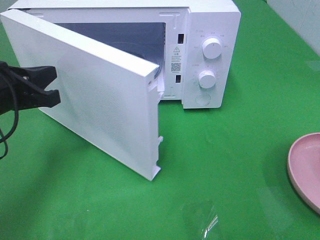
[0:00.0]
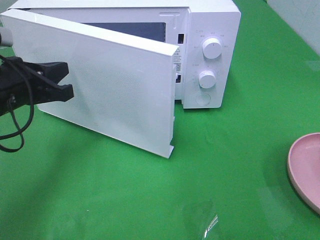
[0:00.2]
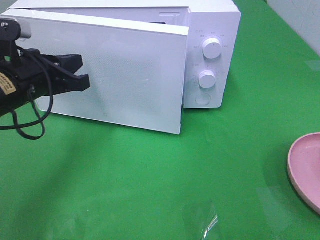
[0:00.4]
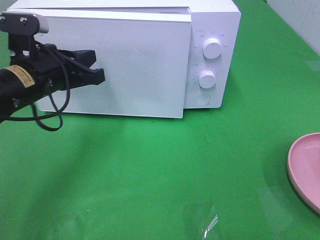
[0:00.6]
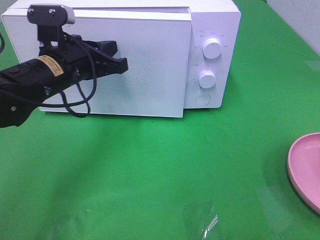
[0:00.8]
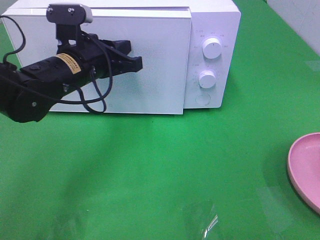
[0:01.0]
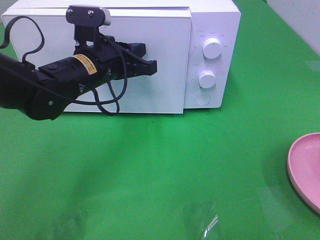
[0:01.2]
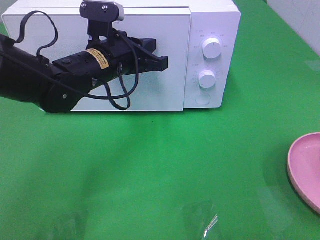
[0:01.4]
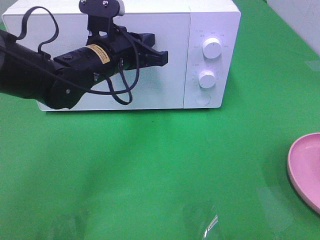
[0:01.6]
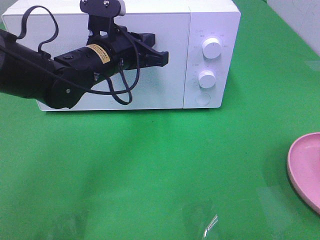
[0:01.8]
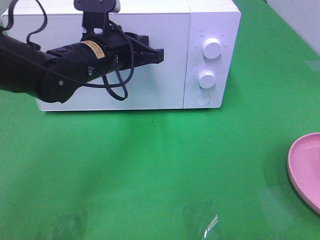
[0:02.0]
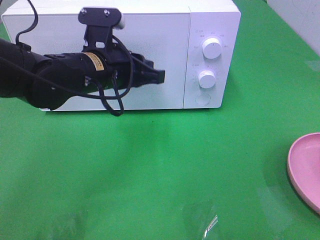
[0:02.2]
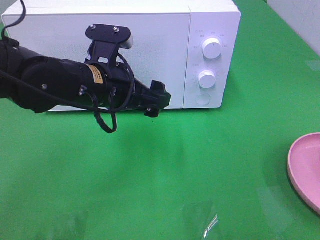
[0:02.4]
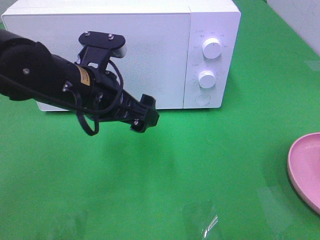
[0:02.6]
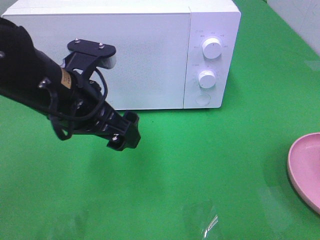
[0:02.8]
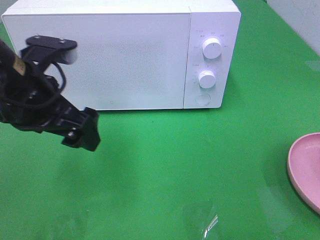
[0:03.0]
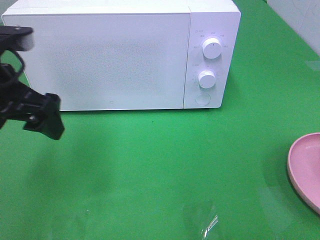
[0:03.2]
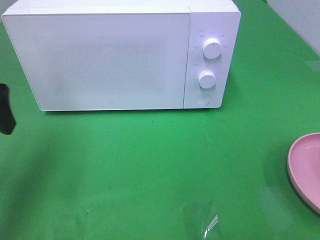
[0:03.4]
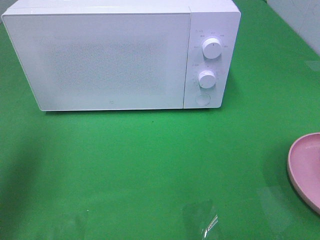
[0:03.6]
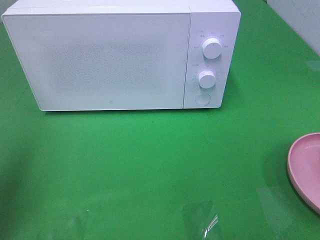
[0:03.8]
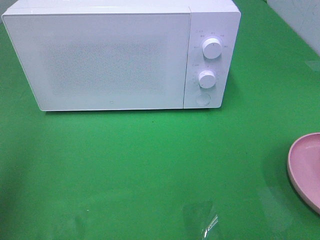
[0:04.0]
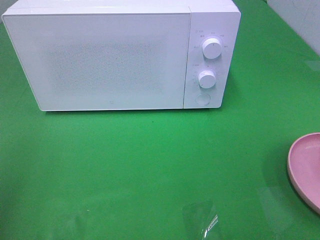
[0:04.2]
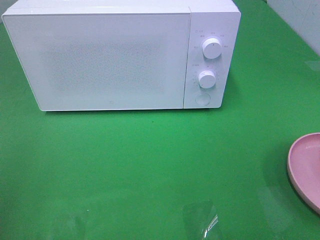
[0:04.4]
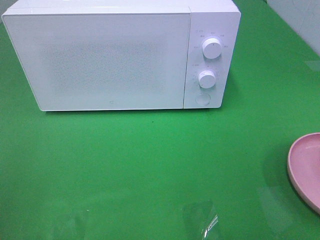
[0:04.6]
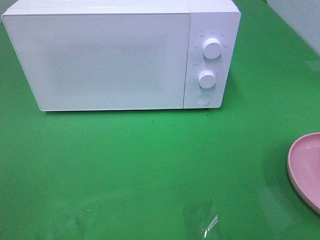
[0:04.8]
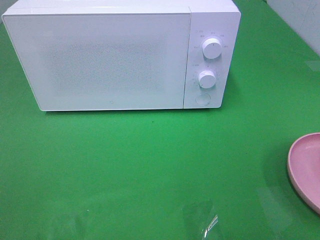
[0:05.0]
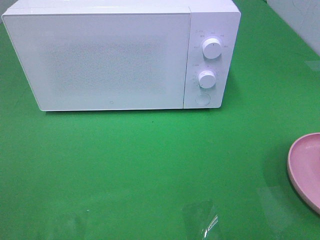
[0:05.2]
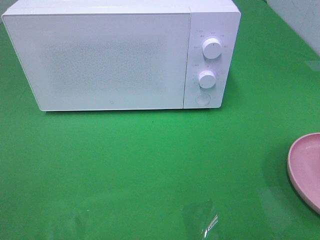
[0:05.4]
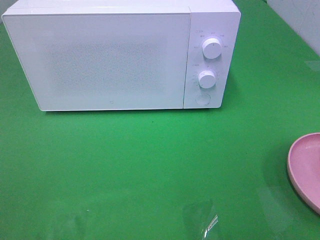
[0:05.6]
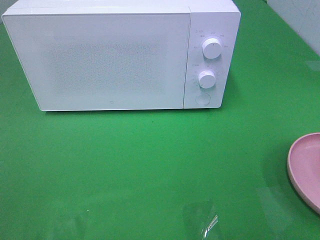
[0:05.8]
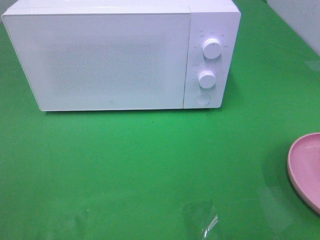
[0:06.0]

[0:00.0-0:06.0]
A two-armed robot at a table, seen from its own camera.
Task of the whole recording: Heat the burger.
Step, 0:00.0 to 0:02.2: Left hand: close the microwave door.
0:00.0 to 0:01.6: The left gripper moves to the right and forward, about 20 cm.
0:01.6 to 0:03.0: The left gripper heads backward and to the left, covering roughly 15 cm, and opens.
0:03.0 to 0:04.4: The left gripper shifts roughly 25 cm backward and to the left.

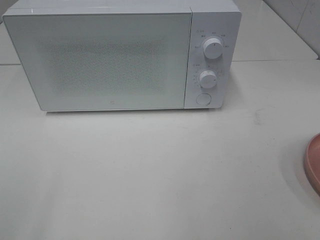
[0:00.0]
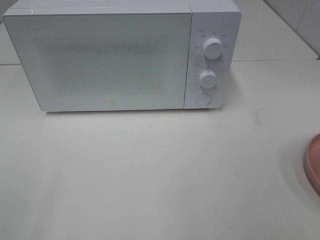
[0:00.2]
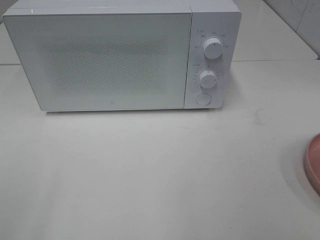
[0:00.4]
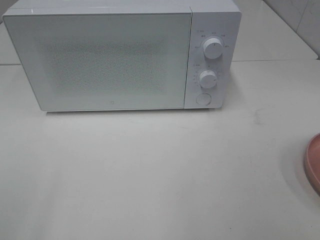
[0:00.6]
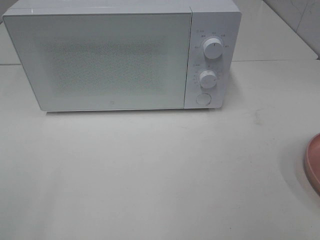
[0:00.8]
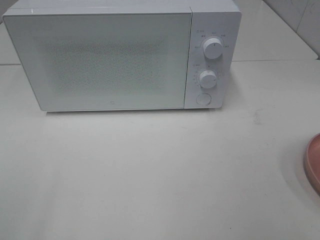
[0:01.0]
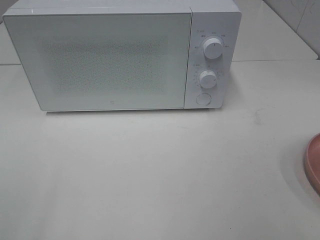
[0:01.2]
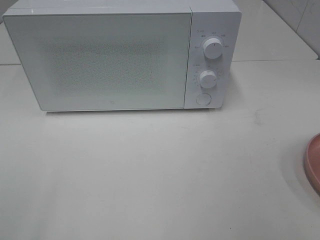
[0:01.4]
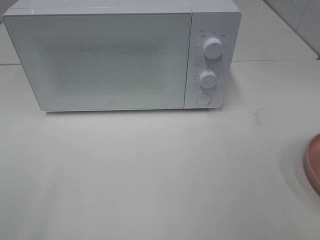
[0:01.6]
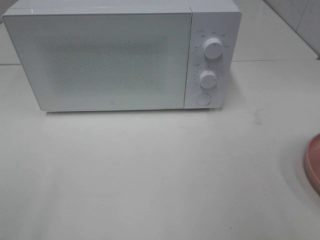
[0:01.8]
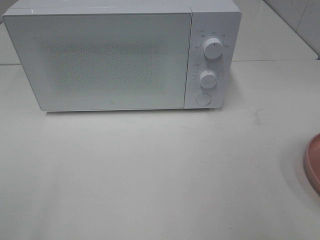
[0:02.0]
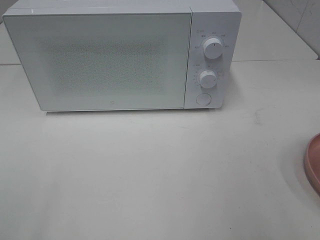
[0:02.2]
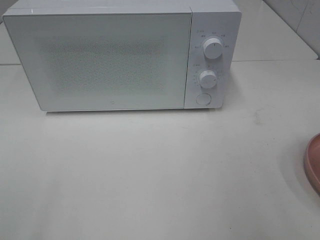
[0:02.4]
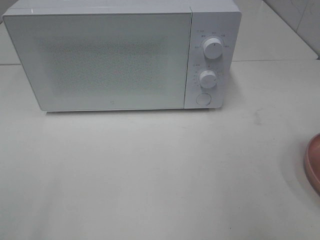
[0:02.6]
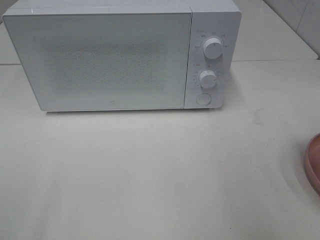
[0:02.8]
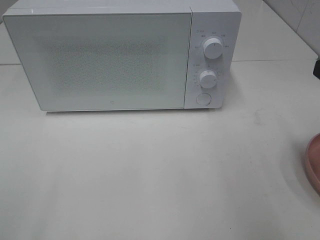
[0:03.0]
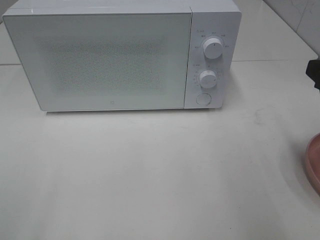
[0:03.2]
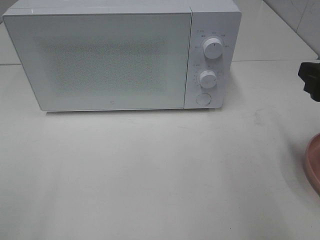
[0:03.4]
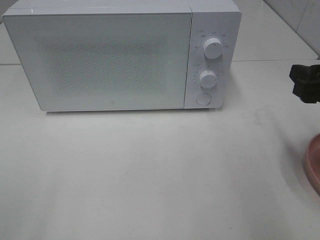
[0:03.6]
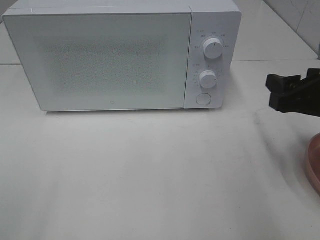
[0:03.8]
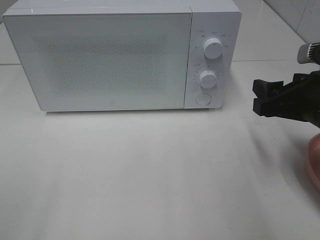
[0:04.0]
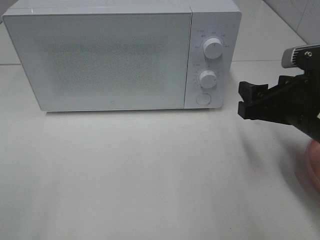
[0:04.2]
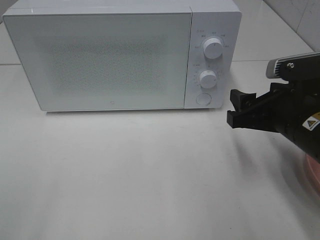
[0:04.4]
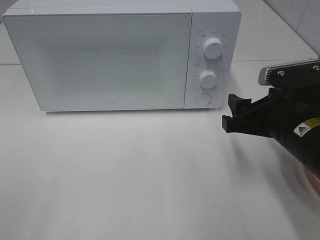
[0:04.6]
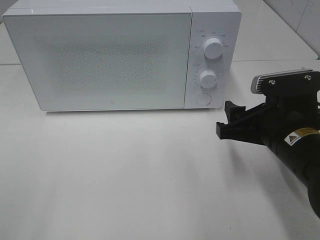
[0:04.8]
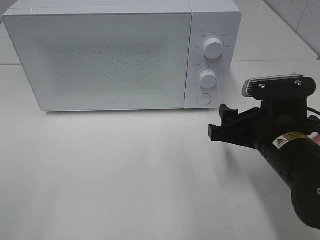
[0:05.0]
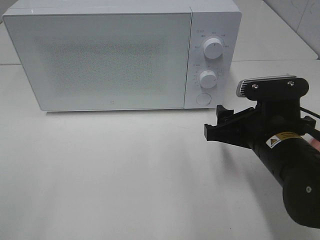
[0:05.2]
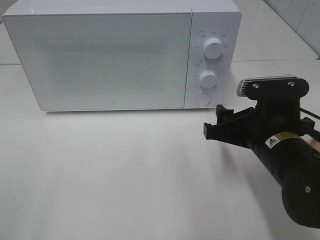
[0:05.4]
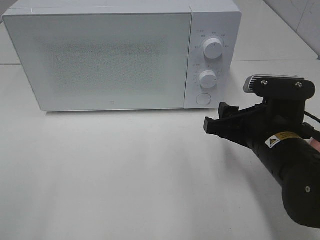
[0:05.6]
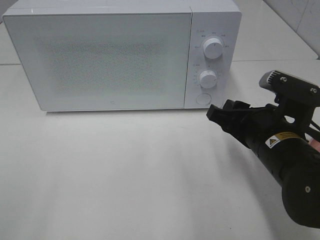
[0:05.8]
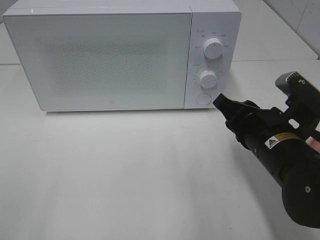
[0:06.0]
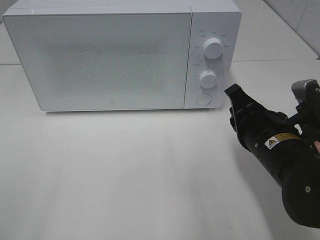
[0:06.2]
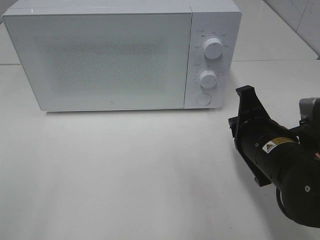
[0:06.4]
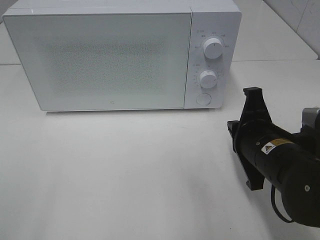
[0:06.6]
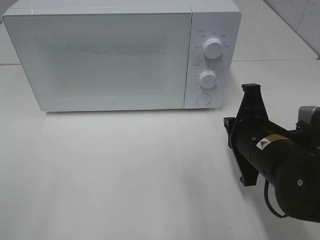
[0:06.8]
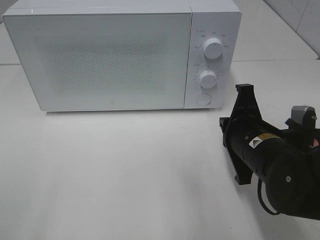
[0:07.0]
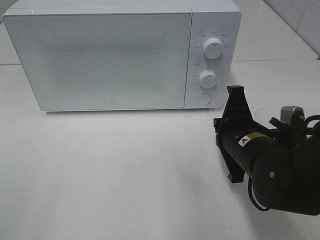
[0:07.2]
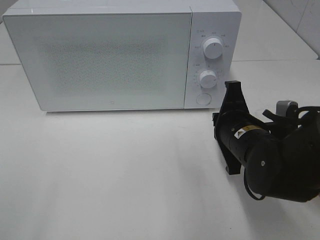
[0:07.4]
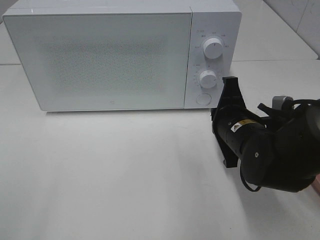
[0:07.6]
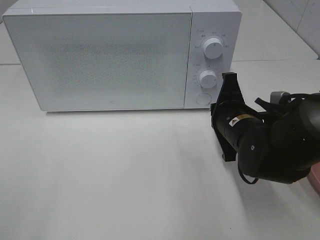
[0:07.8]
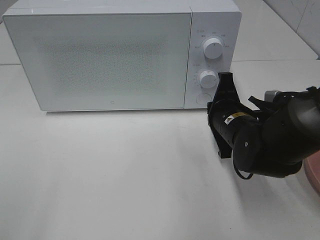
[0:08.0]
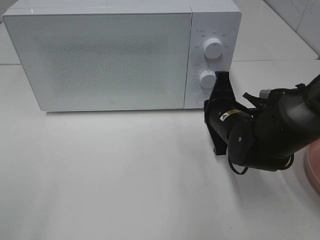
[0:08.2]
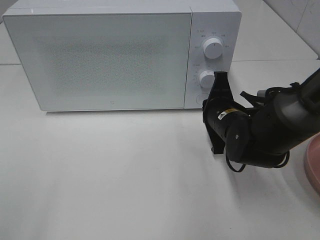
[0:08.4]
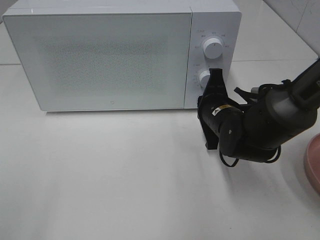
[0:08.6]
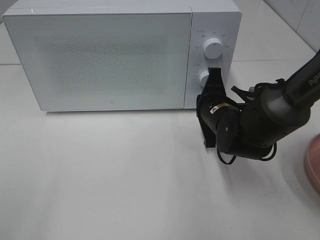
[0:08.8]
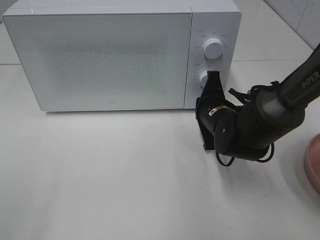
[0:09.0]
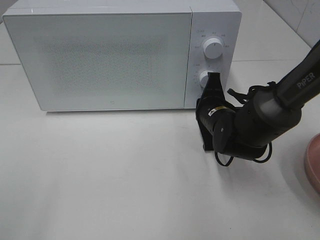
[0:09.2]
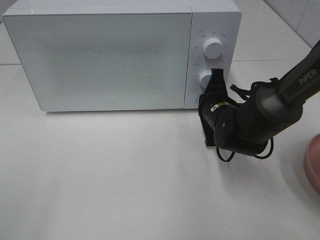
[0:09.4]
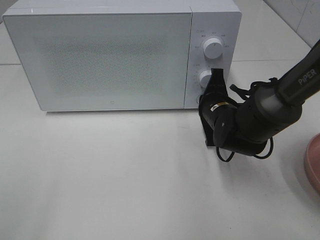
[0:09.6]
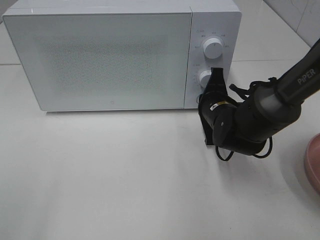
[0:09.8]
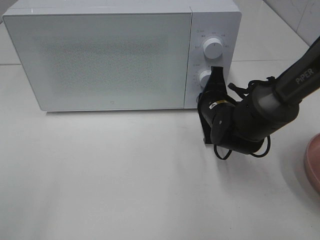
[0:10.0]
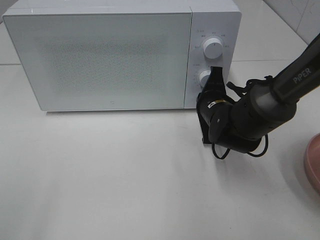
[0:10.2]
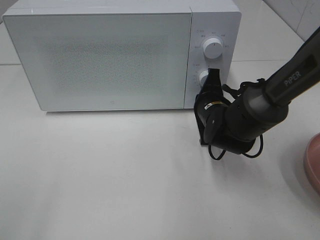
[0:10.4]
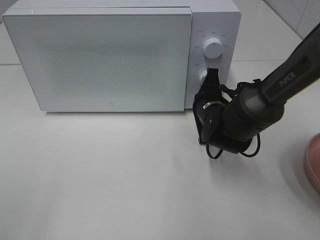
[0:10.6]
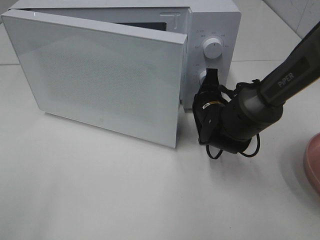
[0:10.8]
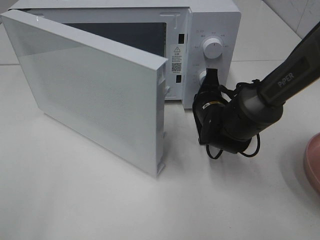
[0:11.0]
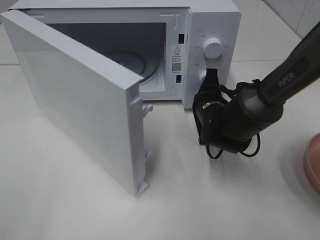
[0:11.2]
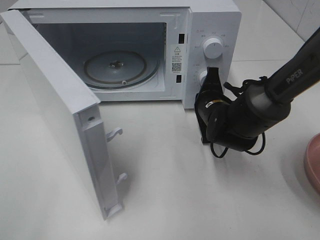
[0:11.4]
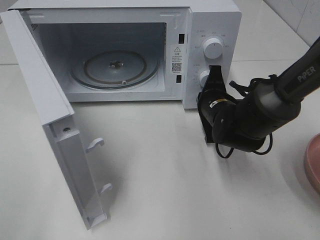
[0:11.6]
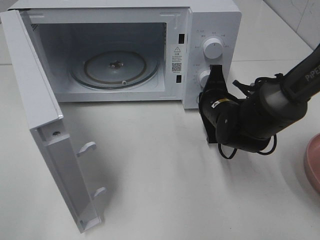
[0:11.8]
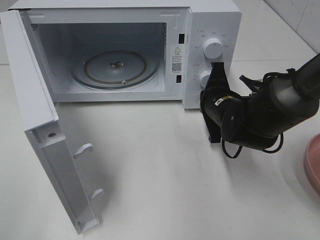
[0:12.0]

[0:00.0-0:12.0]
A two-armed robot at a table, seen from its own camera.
Task of the whole recording: Heat the burger.
Step, 0:00.0 to 0:11.8: Right hand: press the switch.
0:03.0 to 0:04.4: The right gripper goes approximately 10 cm downward and to the left.
0:04.4 to 0:06.0: The right gripper closes its fingers.
0:06.0 to 0:07.6: The right gripper is displaced forward by approximately 5 cm, and closes its fingers.
0:07.6 to 0:09.0: The right gripper is displaced forward by approximately 5 cm.
0:09.0 to 0:10.4: The grippers make only small movements.

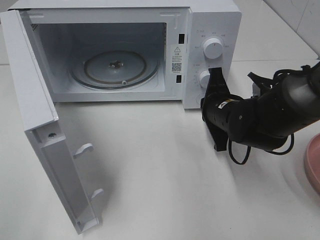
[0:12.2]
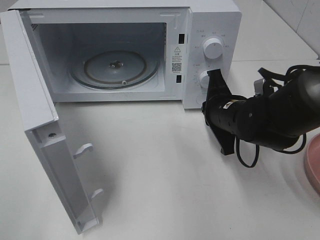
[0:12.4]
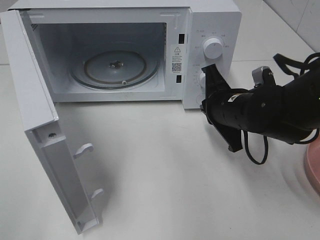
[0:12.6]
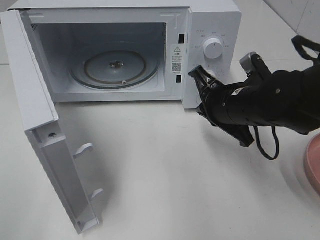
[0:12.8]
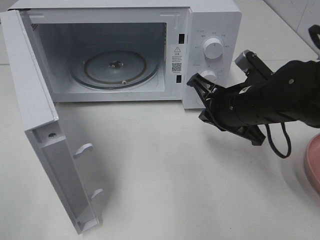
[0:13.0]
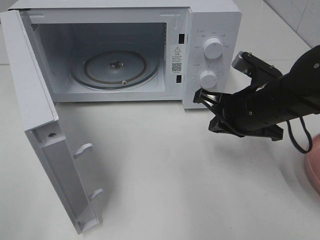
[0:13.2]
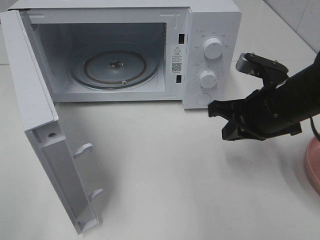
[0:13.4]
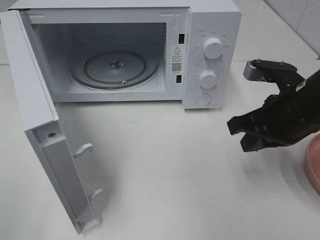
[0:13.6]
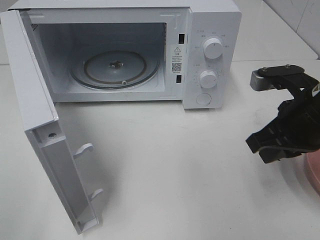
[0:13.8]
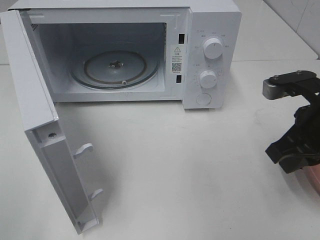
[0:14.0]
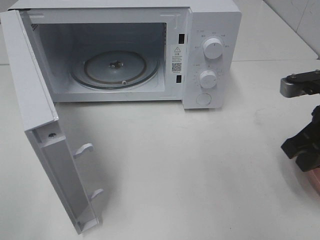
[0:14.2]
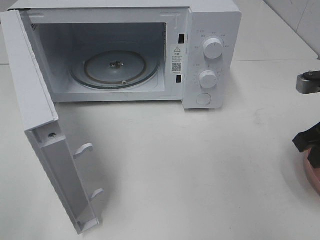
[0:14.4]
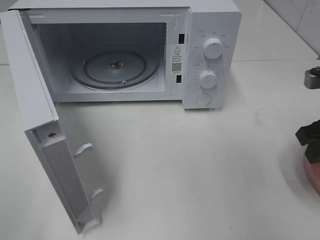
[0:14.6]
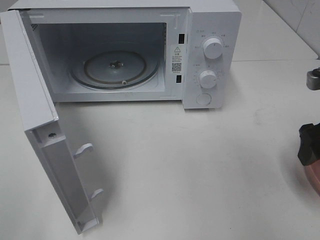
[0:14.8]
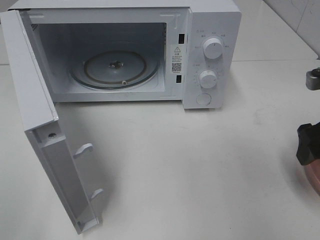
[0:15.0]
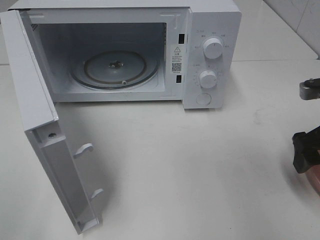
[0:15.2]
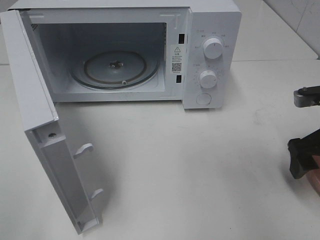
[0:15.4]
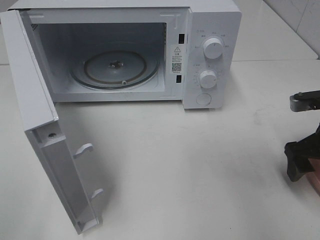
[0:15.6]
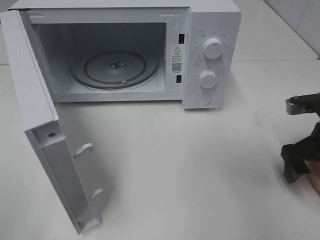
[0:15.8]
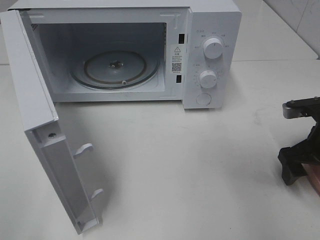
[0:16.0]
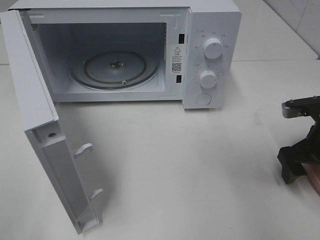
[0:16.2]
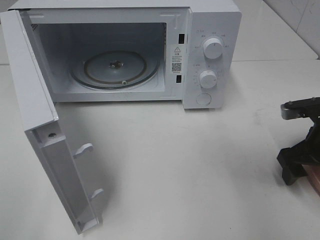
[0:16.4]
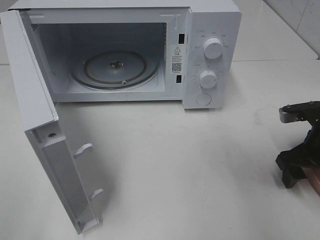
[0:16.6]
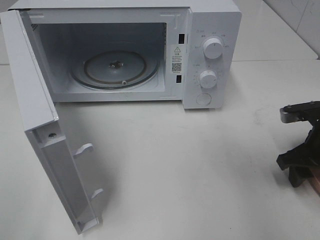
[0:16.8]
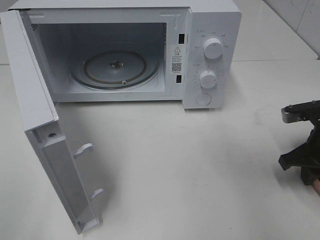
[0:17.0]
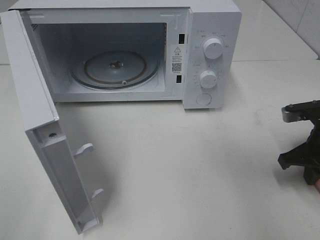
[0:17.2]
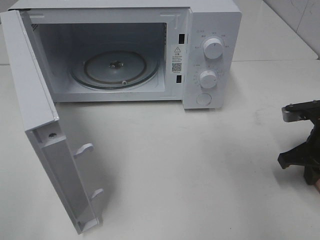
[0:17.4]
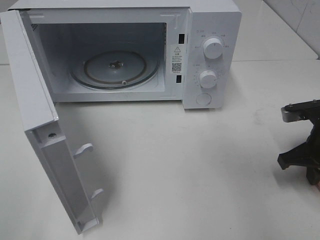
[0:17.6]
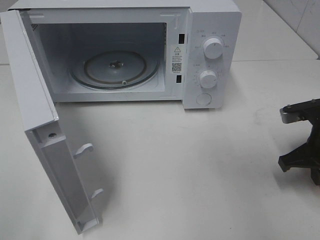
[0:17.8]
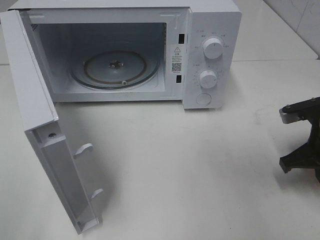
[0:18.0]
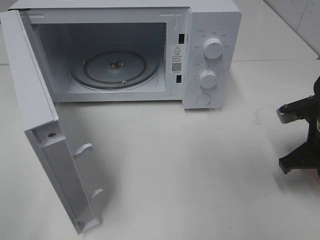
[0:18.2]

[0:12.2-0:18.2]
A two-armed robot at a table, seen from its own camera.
Task of the whole recording: Heat the burger.
Step, 0:12.2 to 0:17.2: Right hand: grab the plate with the hamburger.
0:12.2 to 0:13.8: The right gripper moves upward, backward and to the right, roughly 15 cm.
0:13.8 to 0:15.2: The right gripper is displaced to the right by approximately 10 cm, and opens its fingers.
0:15.2 to 0:16.6: The right gripper heads downward, covering about 5 cm.
0:16.6 to 0:18.2: The right gripper closes.
